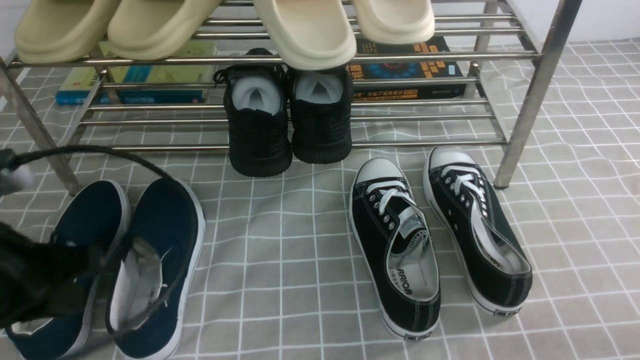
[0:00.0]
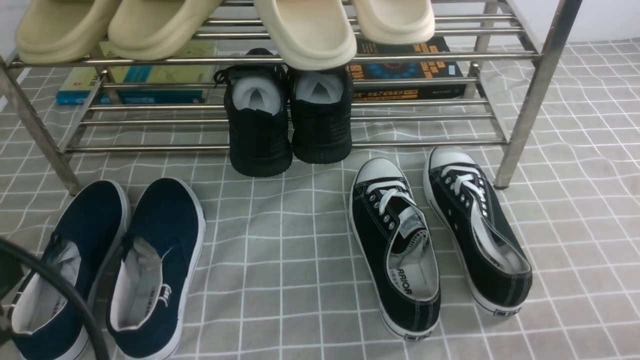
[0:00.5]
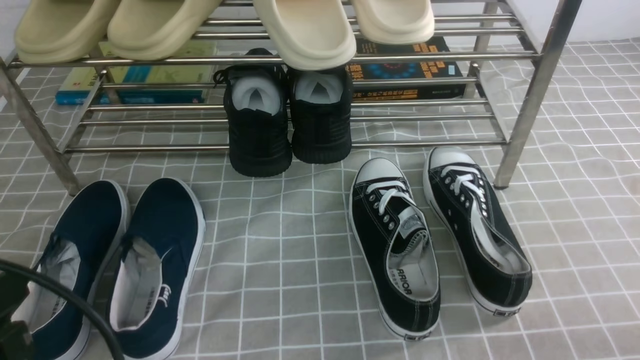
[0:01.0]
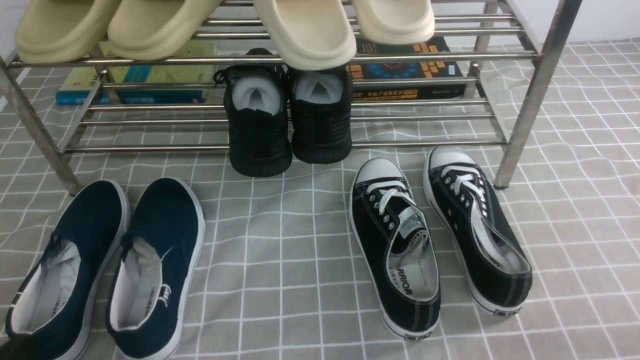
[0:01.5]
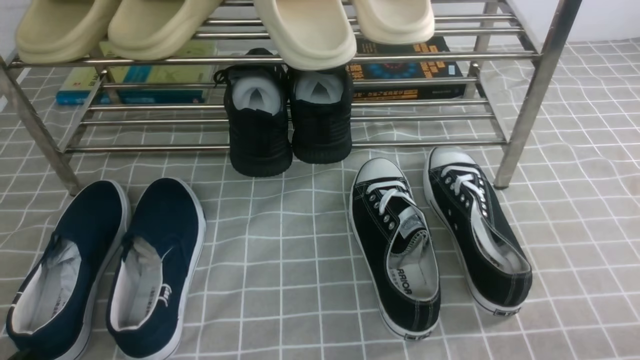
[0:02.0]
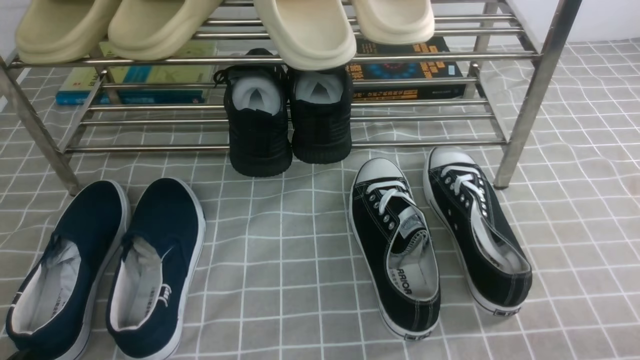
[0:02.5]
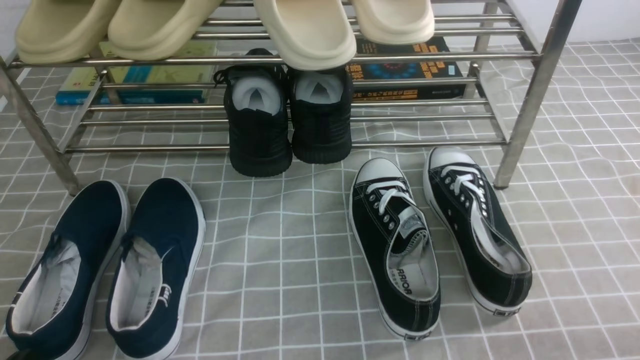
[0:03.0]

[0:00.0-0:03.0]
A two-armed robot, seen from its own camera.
0:00.0 to 0:01.5: The left gripper is displaced backward and downward by approximately 15 cm.

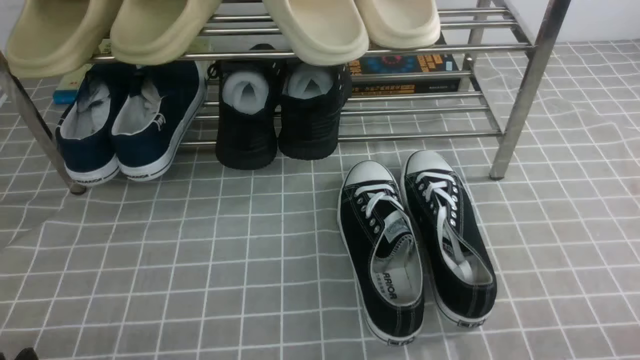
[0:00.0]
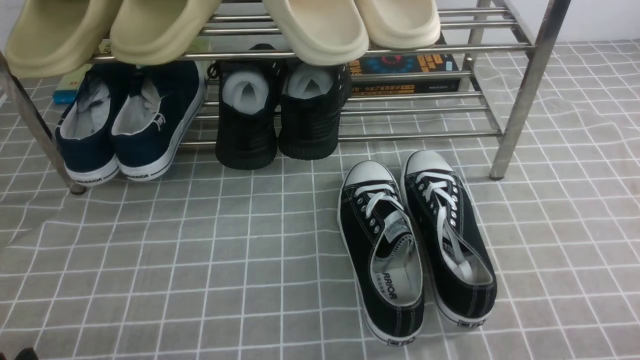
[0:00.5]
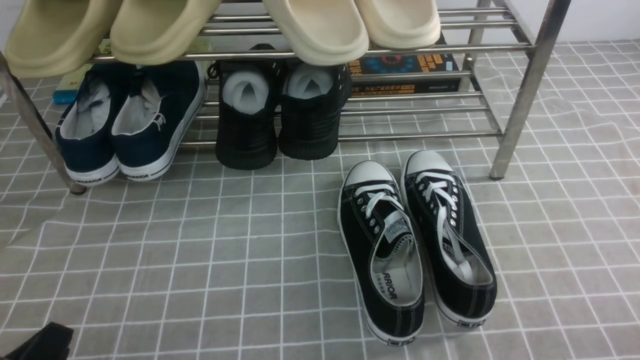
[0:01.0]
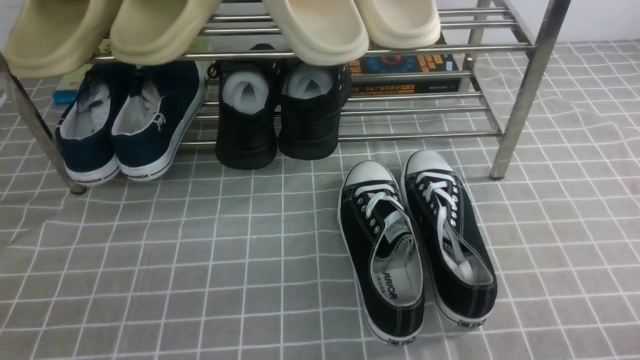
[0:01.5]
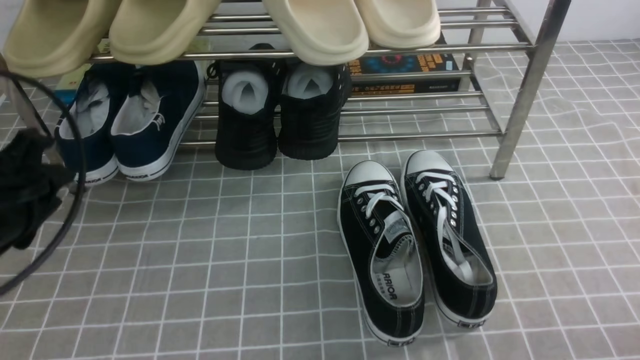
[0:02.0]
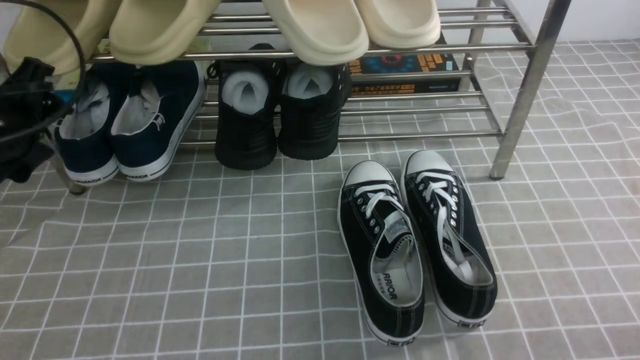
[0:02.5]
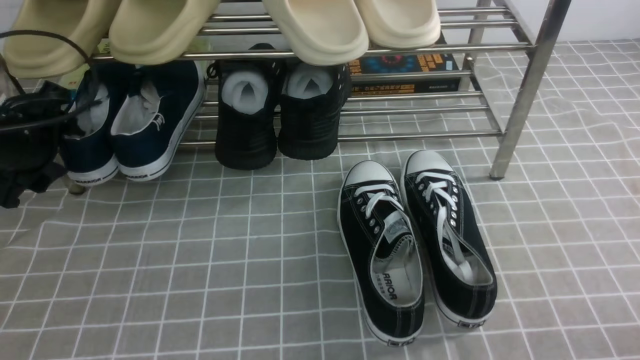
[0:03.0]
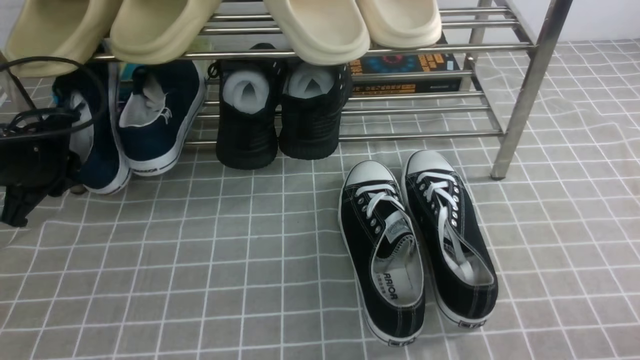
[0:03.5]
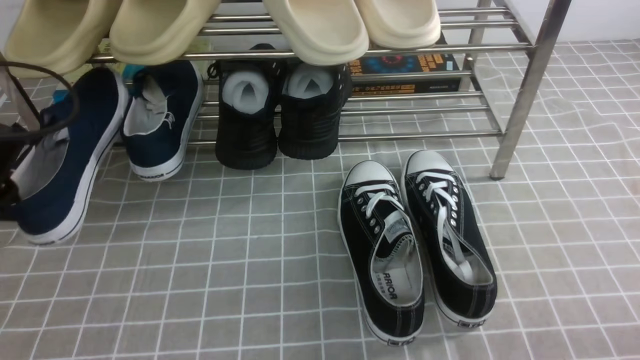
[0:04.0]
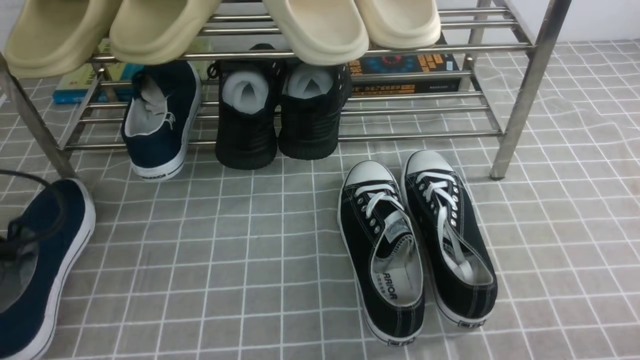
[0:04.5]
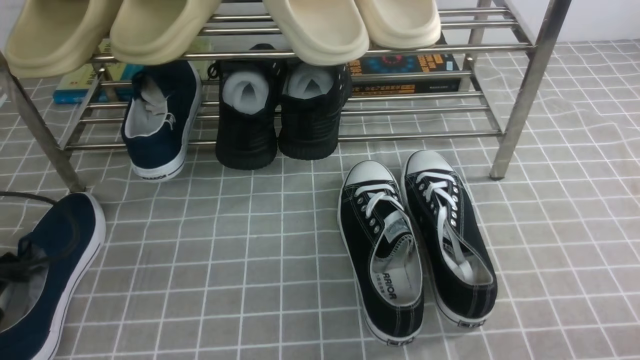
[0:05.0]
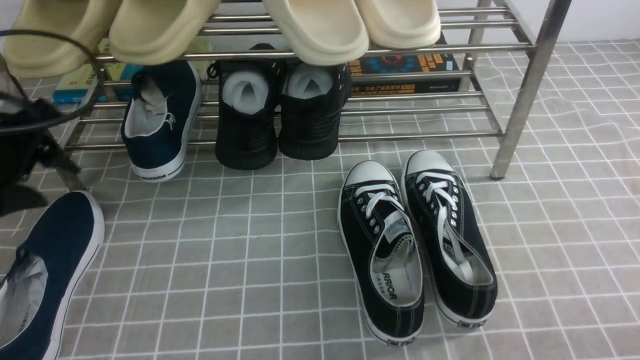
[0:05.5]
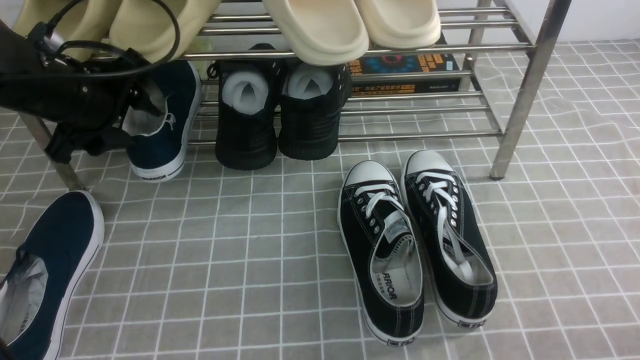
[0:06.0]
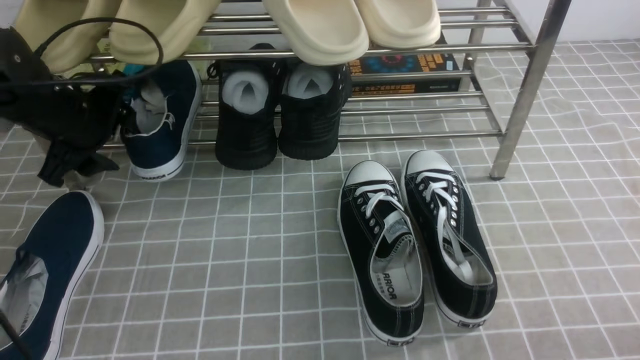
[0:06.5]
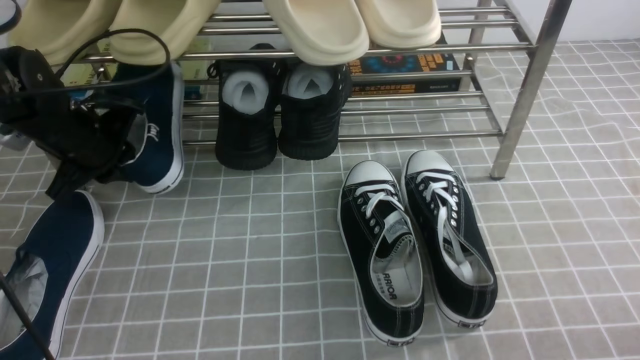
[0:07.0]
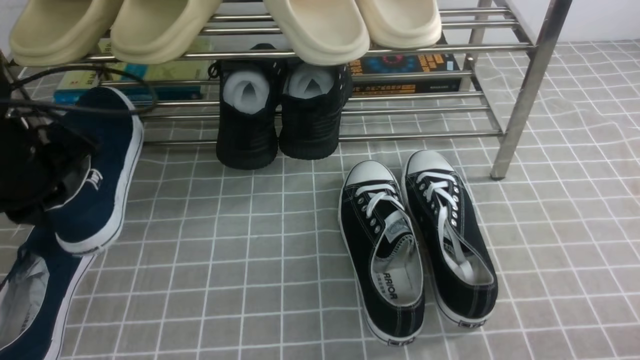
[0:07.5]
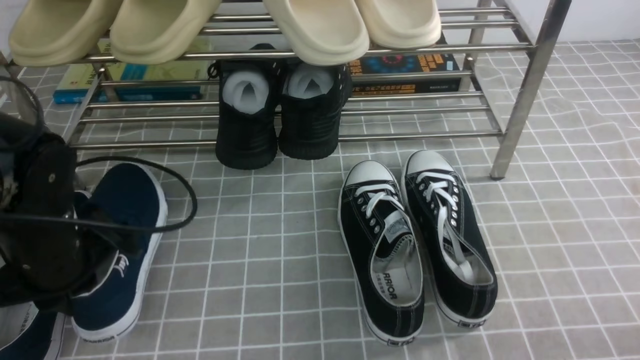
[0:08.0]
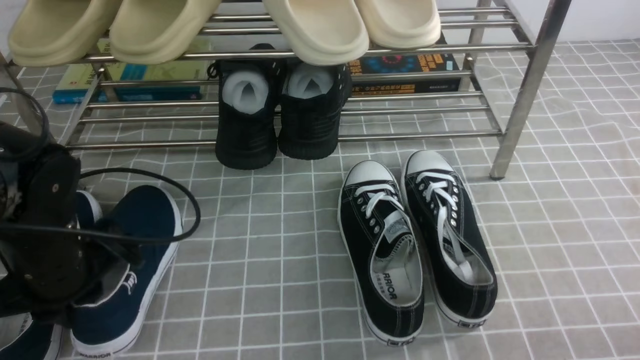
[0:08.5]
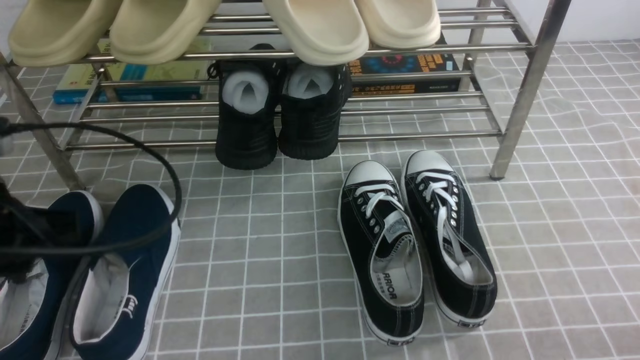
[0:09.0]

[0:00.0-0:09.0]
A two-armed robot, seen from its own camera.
Step, 0:00.0 to 0:03.5: use the left arm to clamp a shoe on the left side of the shoe rack.
Step, 0:04.0 to 0:05.0: Use your left arm to remove the clamped shoe from the shoe rack and put it down.
Step, 0:05.5 to 0:07.0: use the left arm to clamp a shoe on the left side of the shoe rack.
Step, 0:07.5 to 0:08.5: Use your left arm to remove the clamped shoe from the shoe rack and put it down.
0:02.0 to 0:04.5: The left gripper is displaced to the left by roughly 5 cm, moves some 15 cm forward and comes back, and closes up.
0:04.5 to 0:07.0: The left gripper is displaced forward by about 15 cm, and opens its fingers.
0:07.0 to 0:09.0: The left gripper goes about 15 cm backward, and closes, then opens again.

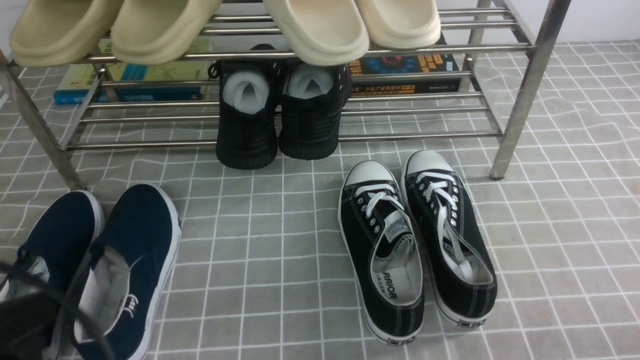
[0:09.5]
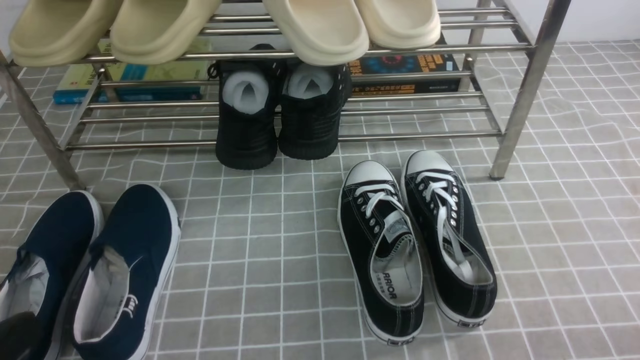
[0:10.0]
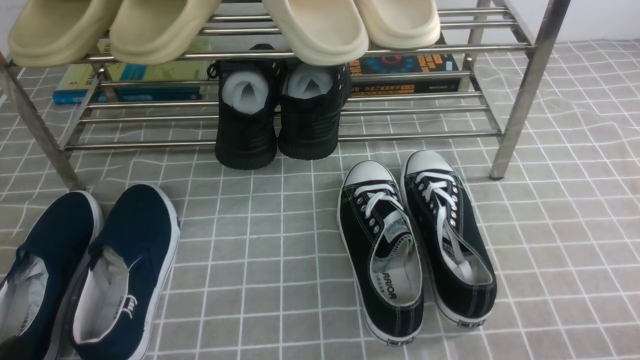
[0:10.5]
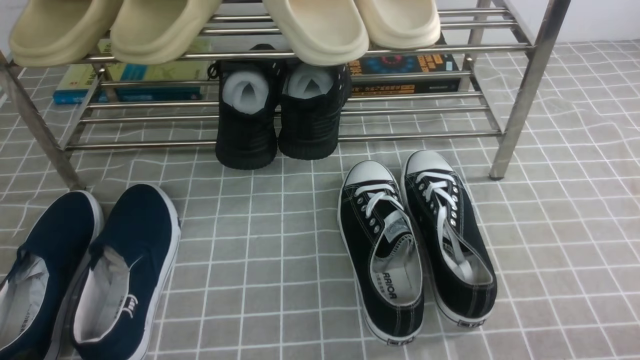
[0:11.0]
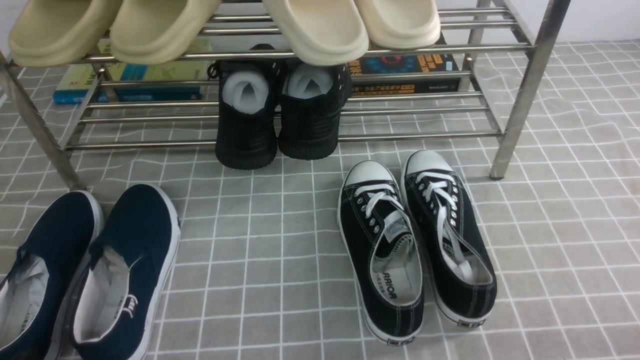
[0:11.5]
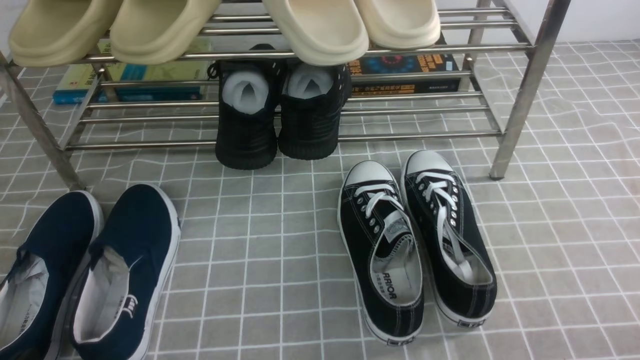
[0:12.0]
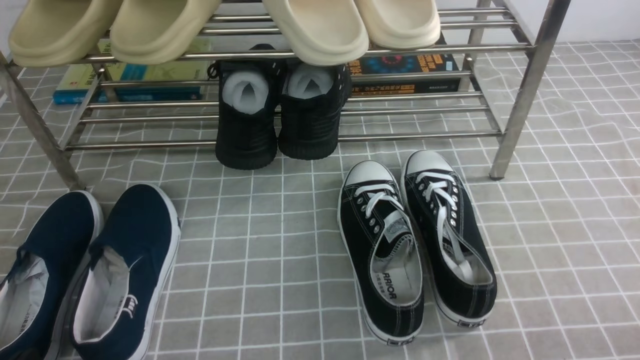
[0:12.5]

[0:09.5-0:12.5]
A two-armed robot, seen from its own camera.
0:09.5 to 0:11.0: The left gripper goes roughly 15 cm downward.
0:11.0 to 0:12.5: Both grippers stay about where they are.
